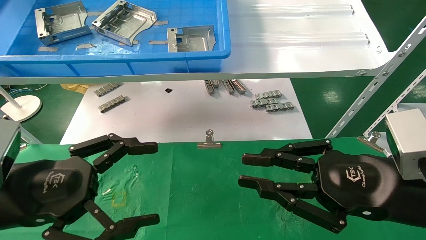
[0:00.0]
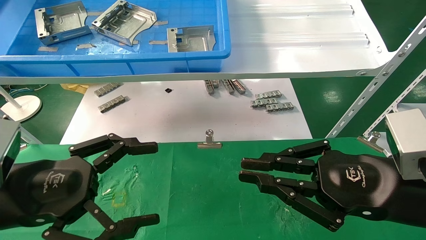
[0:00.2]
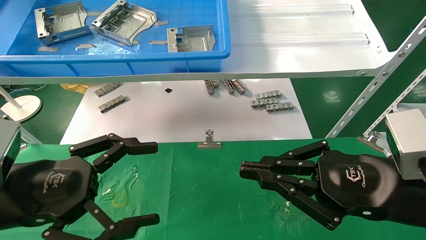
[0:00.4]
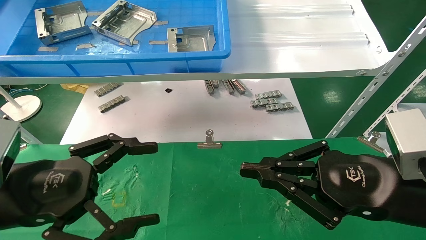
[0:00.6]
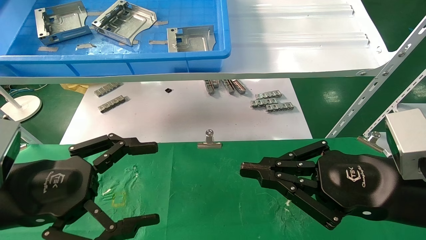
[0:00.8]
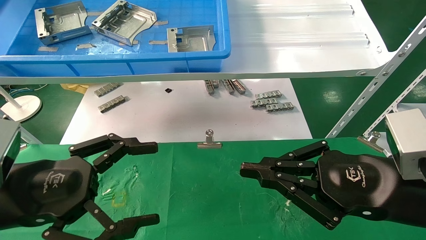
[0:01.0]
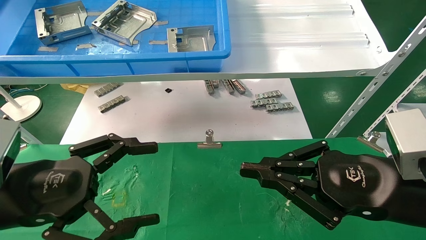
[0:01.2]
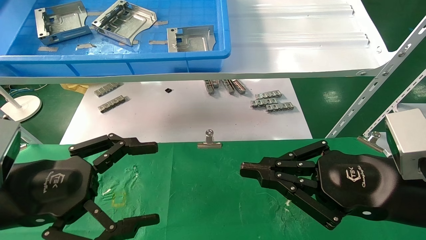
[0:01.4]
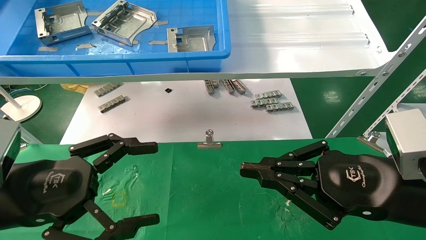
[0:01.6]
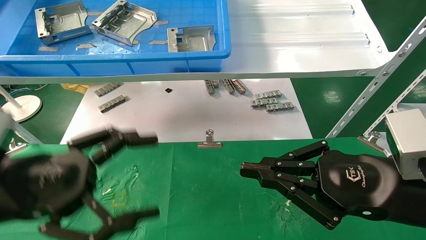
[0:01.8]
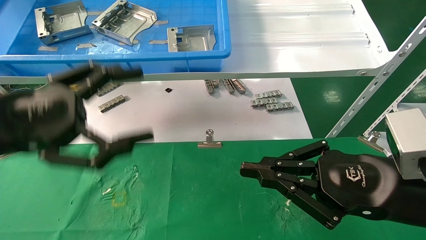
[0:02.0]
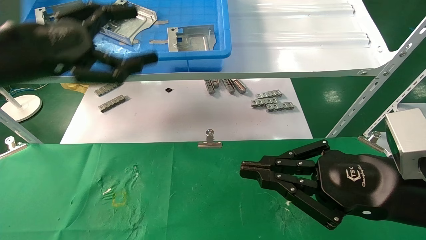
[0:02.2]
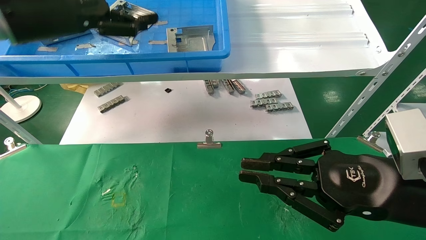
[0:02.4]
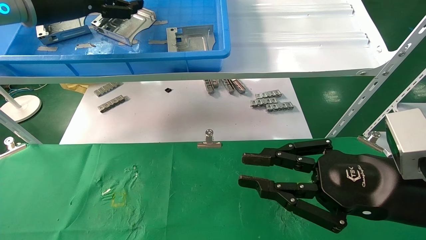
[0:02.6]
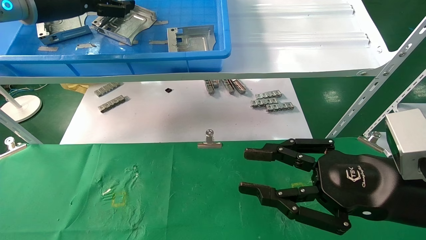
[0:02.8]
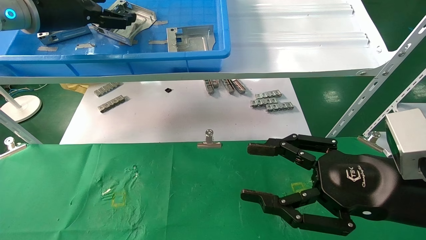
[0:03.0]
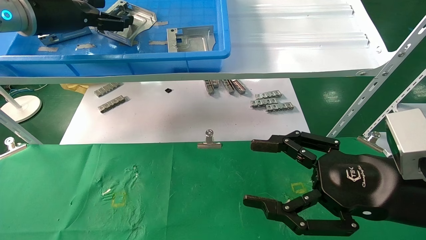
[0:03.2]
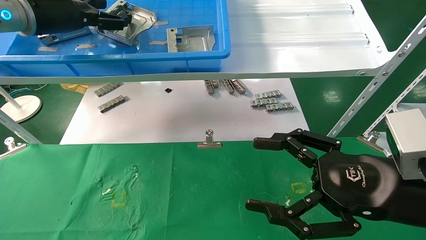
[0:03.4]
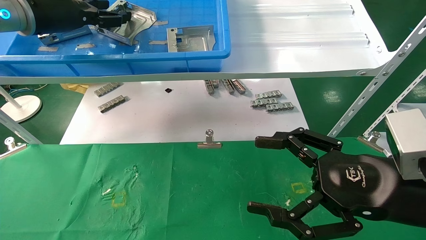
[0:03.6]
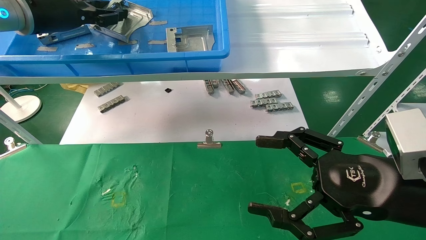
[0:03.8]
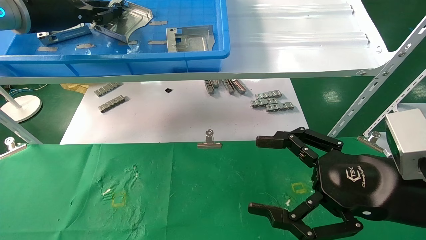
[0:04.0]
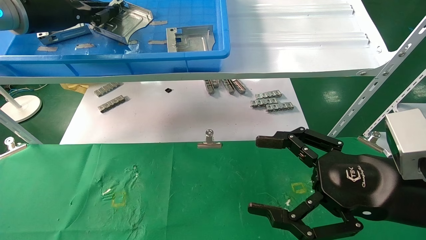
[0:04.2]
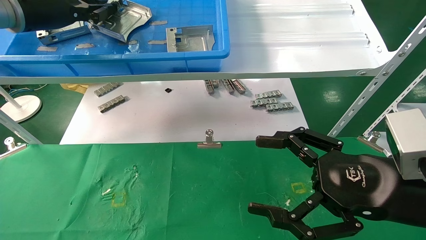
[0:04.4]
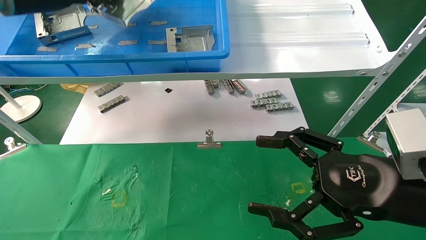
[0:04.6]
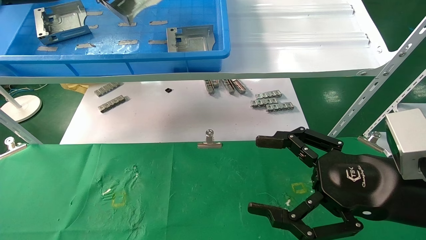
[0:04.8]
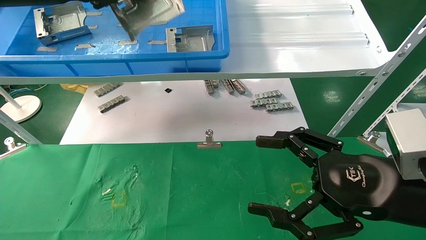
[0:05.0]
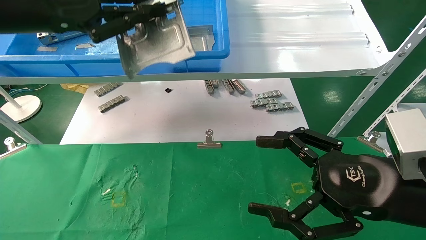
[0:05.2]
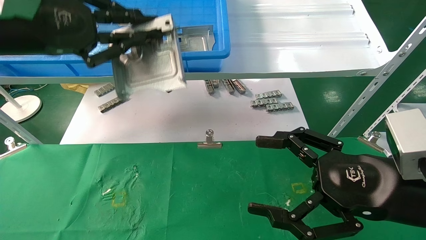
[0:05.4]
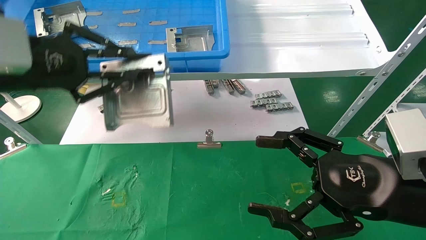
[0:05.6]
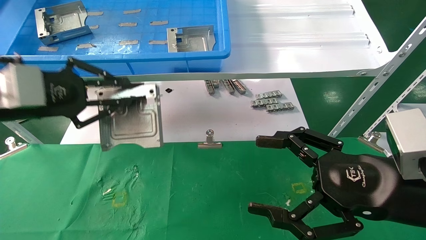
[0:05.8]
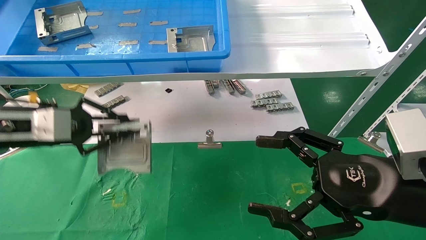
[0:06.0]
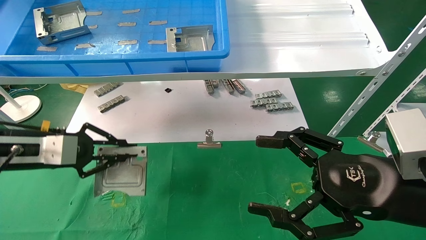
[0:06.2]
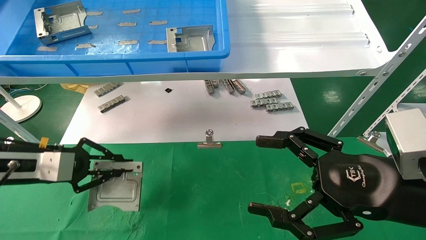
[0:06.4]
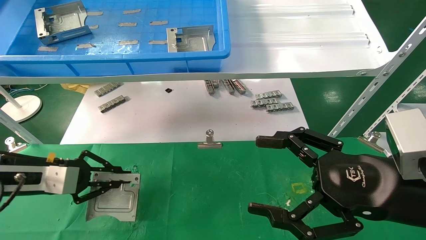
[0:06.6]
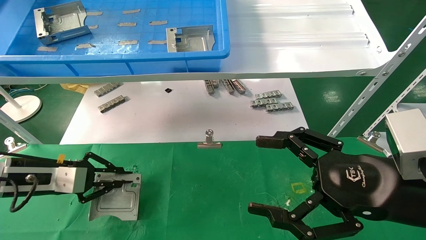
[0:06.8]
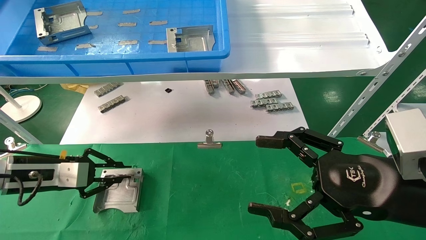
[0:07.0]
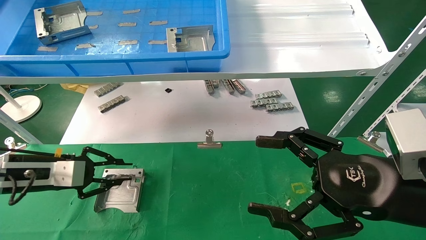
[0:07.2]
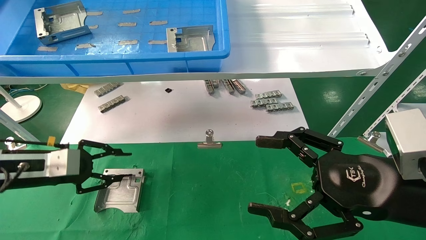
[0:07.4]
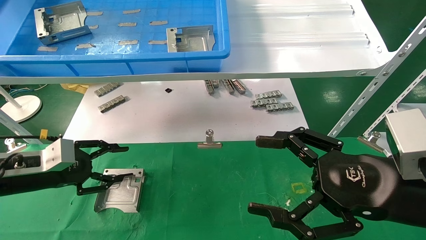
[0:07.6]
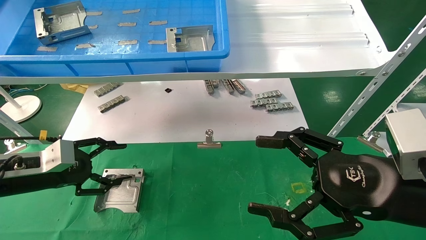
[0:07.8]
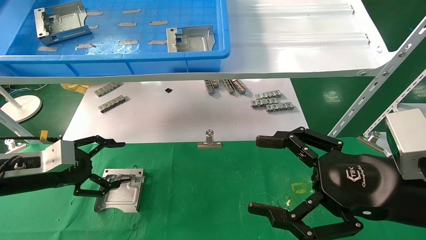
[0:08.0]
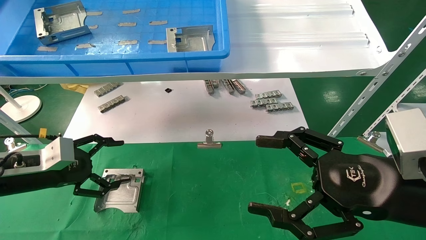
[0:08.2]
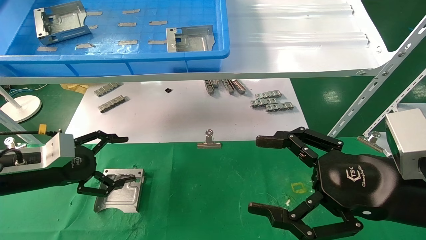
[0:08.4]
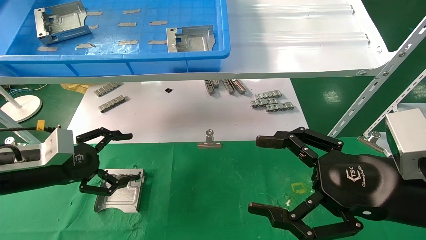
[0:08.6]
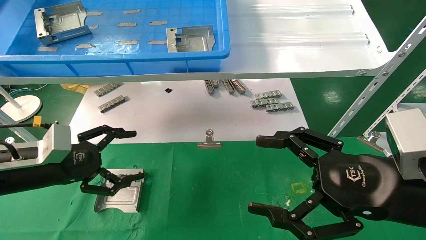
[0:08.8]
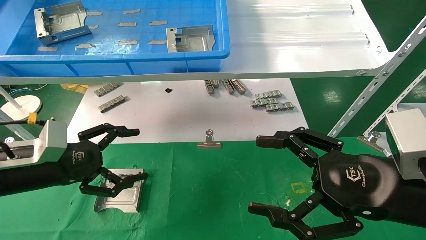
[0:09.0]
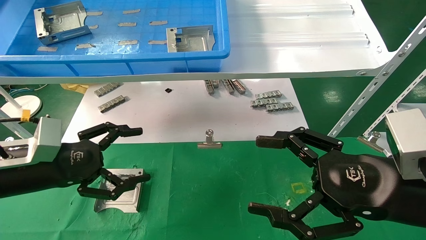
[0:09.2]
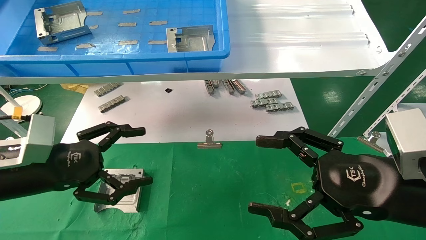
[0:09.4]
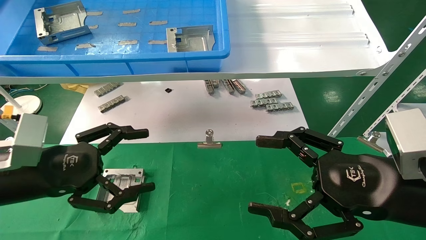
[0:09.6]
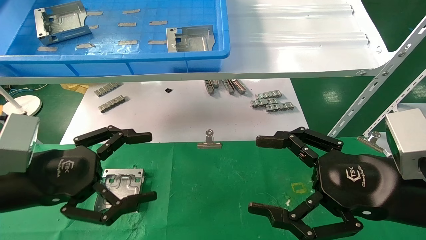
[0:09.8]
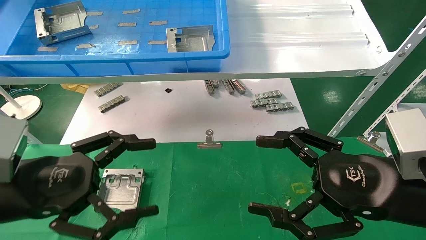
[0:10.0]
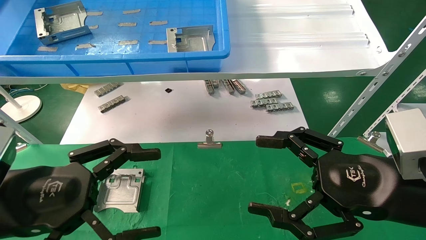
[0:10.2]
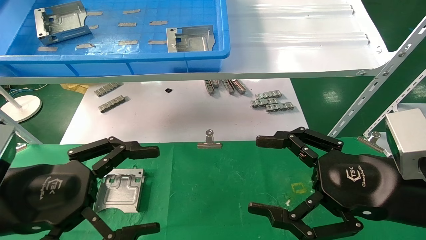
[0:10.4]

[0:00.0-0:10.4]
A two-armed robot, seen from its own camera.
Task of the whole recording: use the mechanical arm to pick up the parts and place them on the table.
Step, 0:02.2 to 0:04.2: Pick up the hard drive bracket from the feeding area.
Step, 0:04.4 to 0:07.2: Place the hard drive bracket into the box.
0:00.0 to 0:01.4: Both grippers stay put.
0:01.4 to 0:03.0: The left gripper heads upward and forward, covering about 30 cm. Meanwhile the right gripper opens up.
0:03.0 to 0:04.4: The right gripper opens, while the left gripper closes up.
0:04.4 to 0:06.0: The left gripper is displaced downward and backward by about 20 cm.
0:06.0 to 0:07.4: The left gripper shifts approximately 10 cm downward.
0:07.4 to 0:09.0: The left gripper changes place by some 5 cm, and opens its fingers.
0:09.0 to 0:10.4: The left gripper goes about 15 cm backward and to the right.
